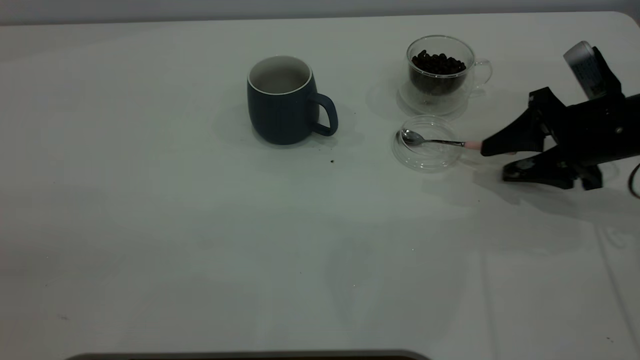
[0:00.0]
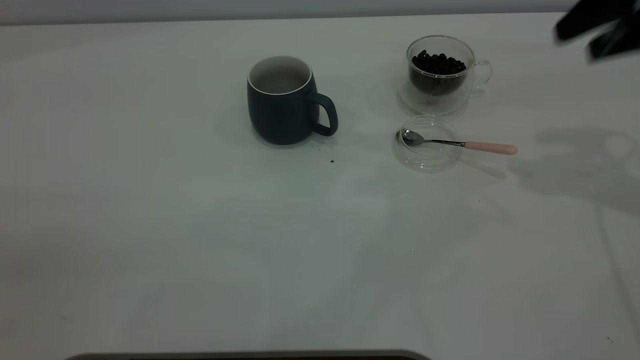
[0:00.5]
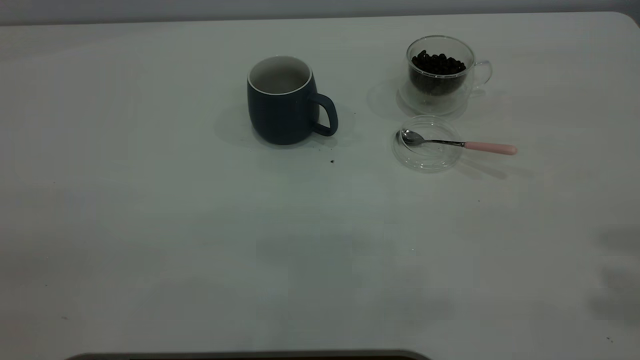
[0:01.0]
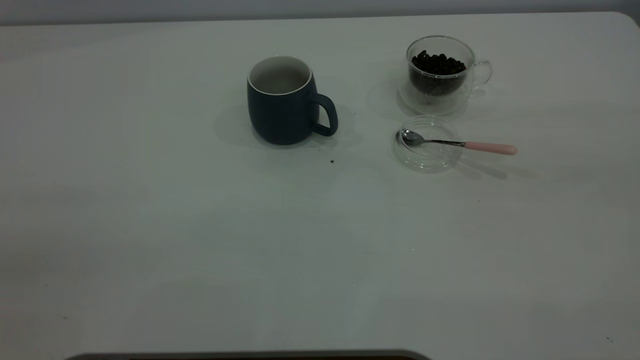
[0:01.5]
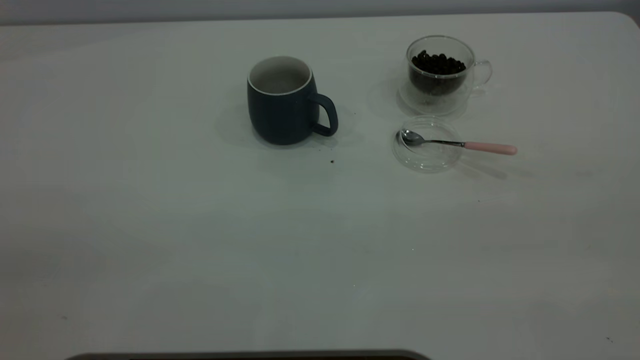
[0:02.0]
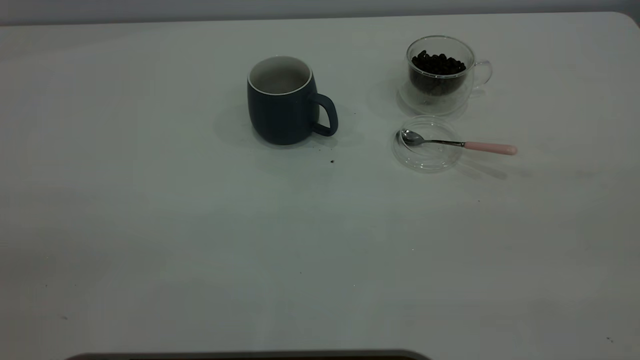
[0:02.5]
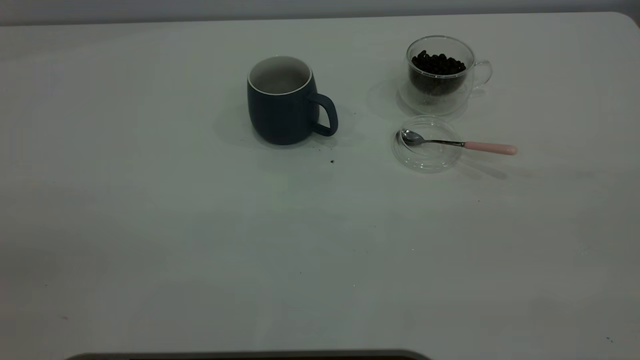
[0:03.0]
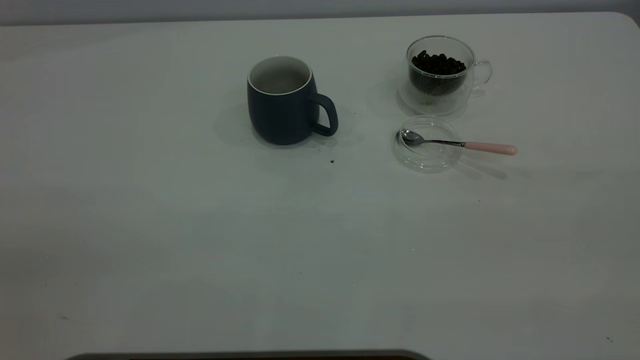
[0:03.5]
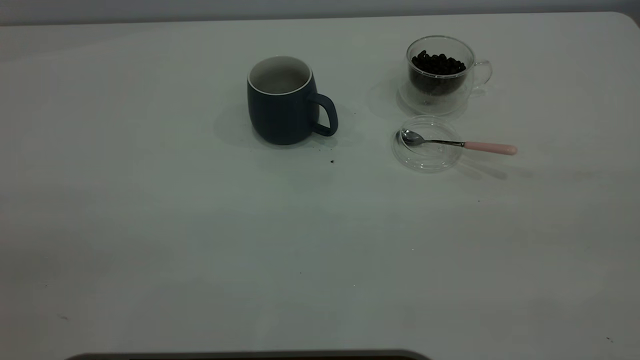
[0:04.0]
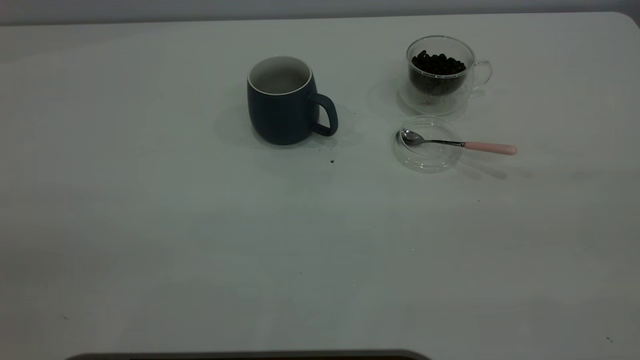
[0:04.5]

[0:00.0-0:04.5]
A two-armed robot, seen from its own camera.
Task of the whole recording: the left gripper place the grey cup in the center of the table, the right gripper take the pink spoon from the cup lid and scoop out the coffee beans from the coffee cup and put them into the grey cup, the right gripper put the spoon back into the cup lid.
0:00.0 to 0:02.0: The right gripper heads backward and upward, covering about 40 cm.

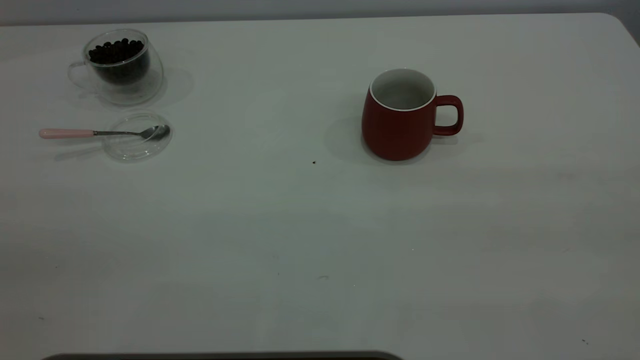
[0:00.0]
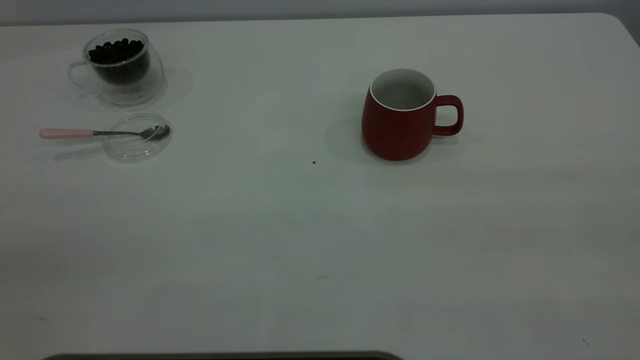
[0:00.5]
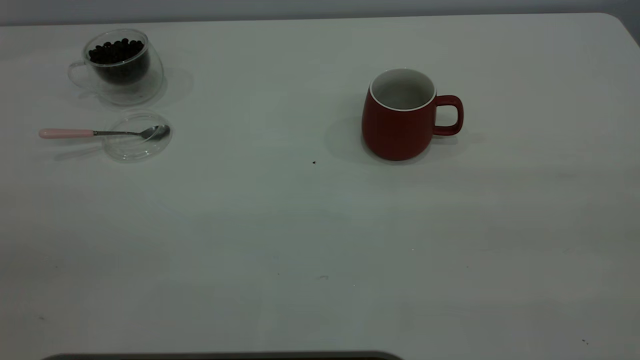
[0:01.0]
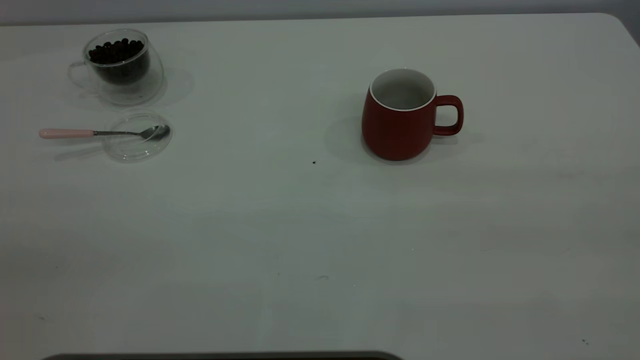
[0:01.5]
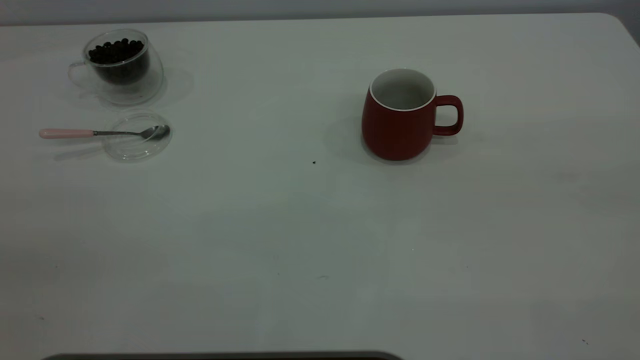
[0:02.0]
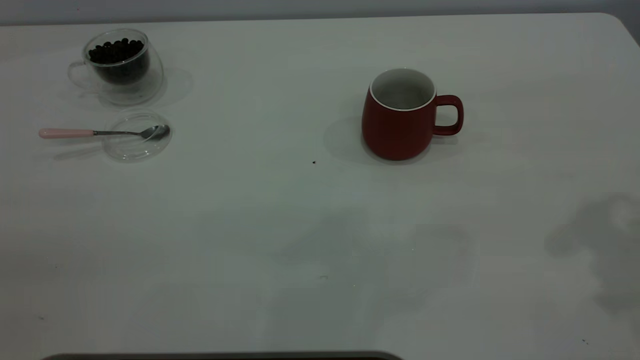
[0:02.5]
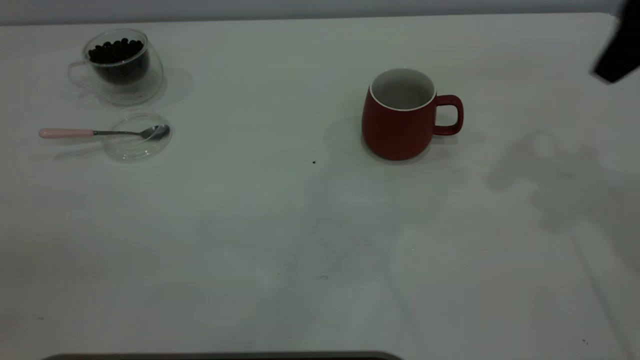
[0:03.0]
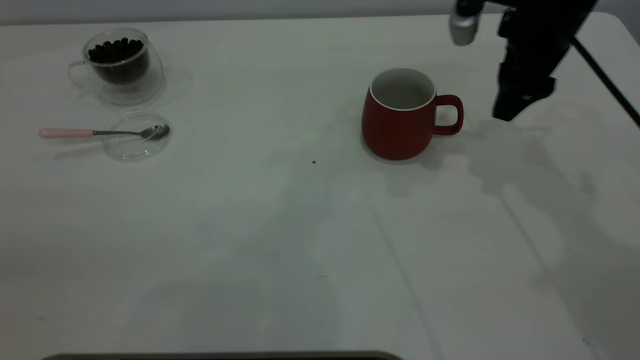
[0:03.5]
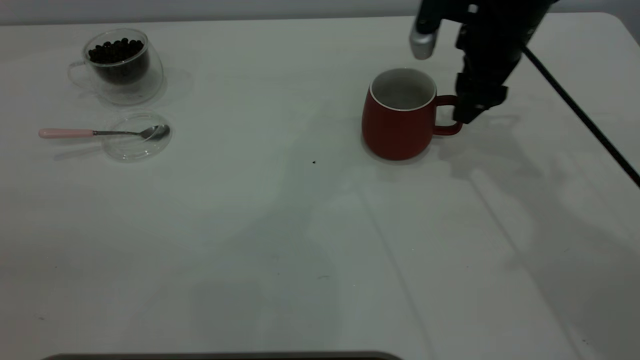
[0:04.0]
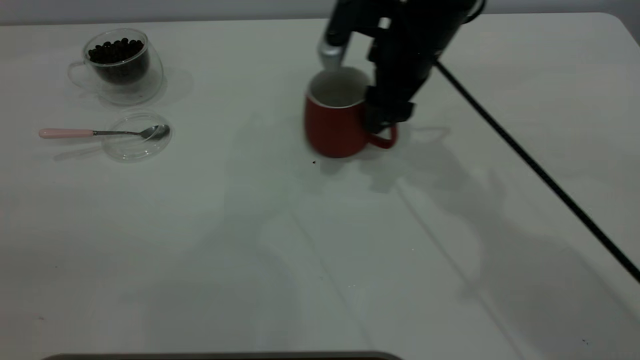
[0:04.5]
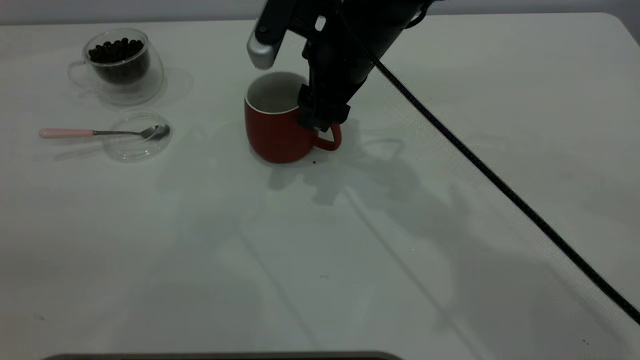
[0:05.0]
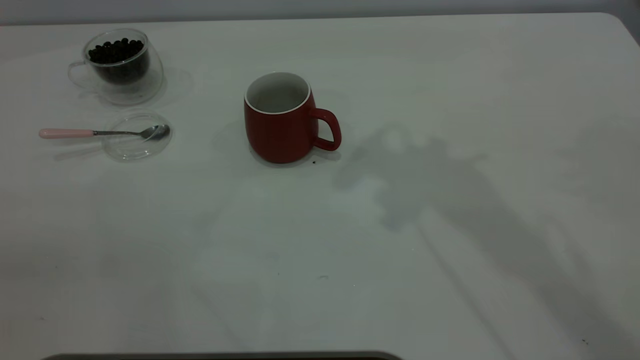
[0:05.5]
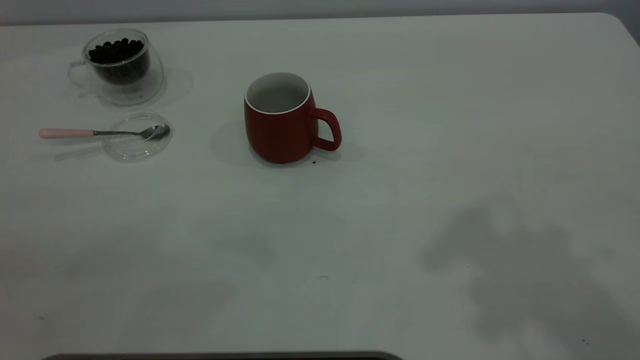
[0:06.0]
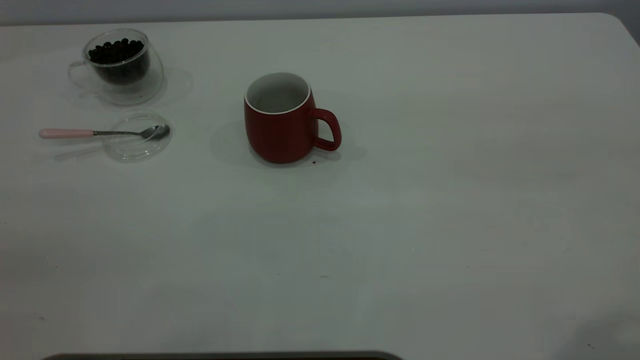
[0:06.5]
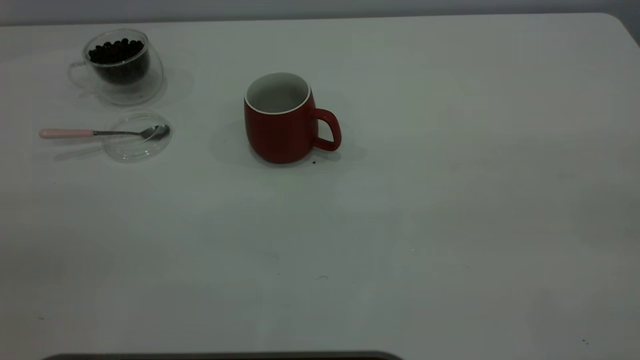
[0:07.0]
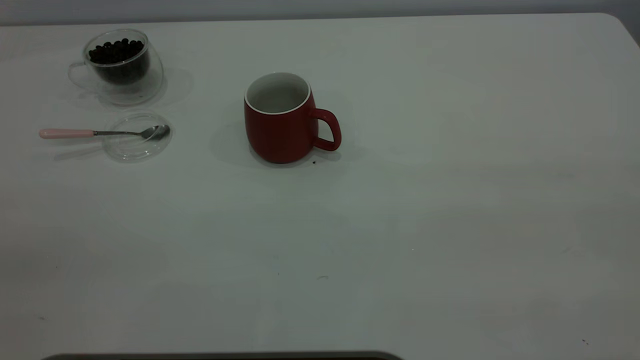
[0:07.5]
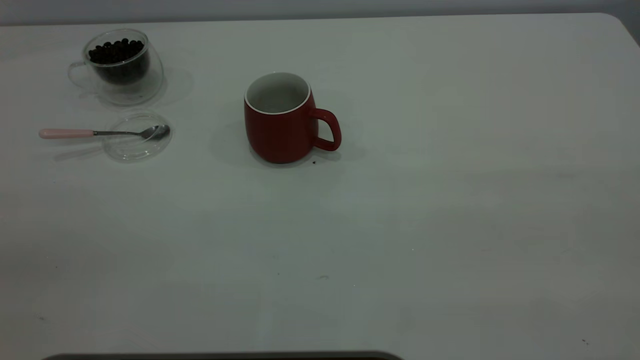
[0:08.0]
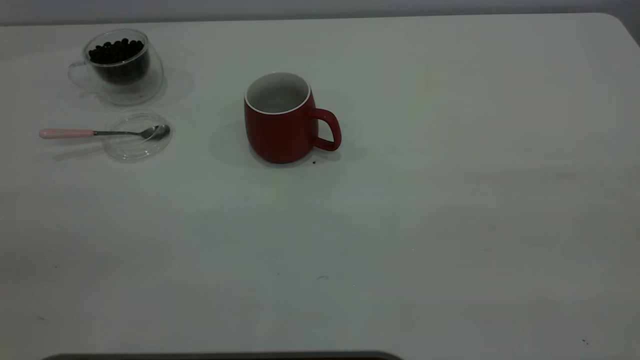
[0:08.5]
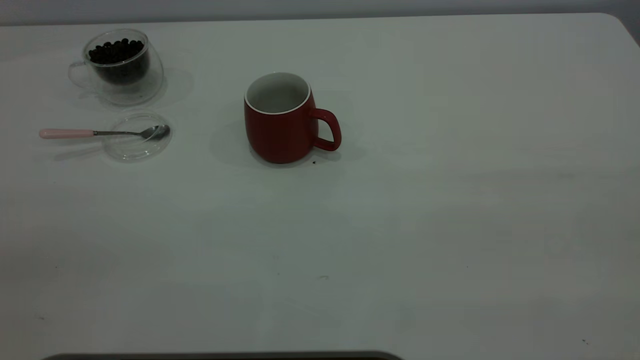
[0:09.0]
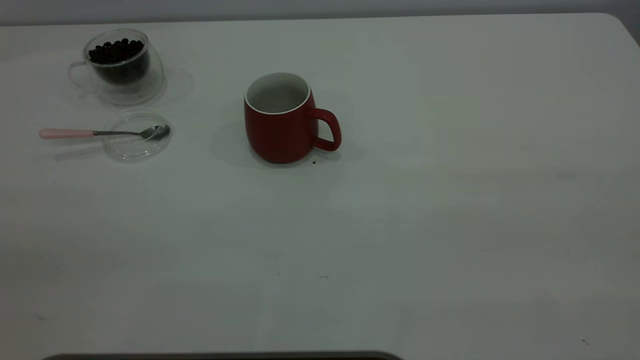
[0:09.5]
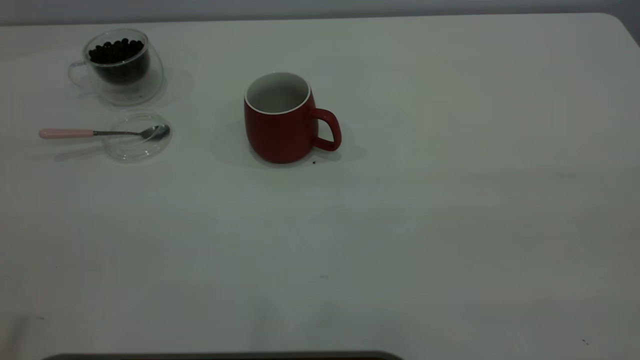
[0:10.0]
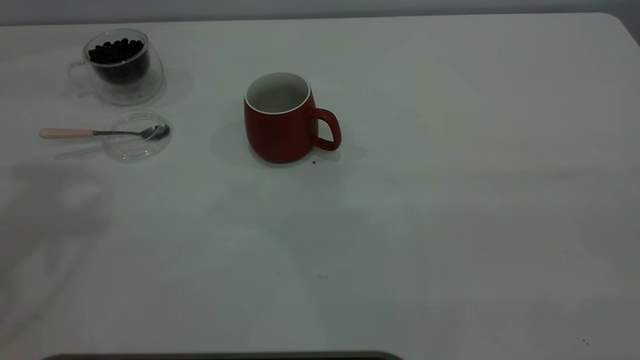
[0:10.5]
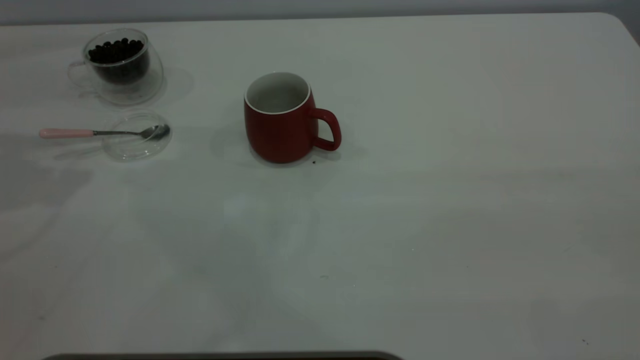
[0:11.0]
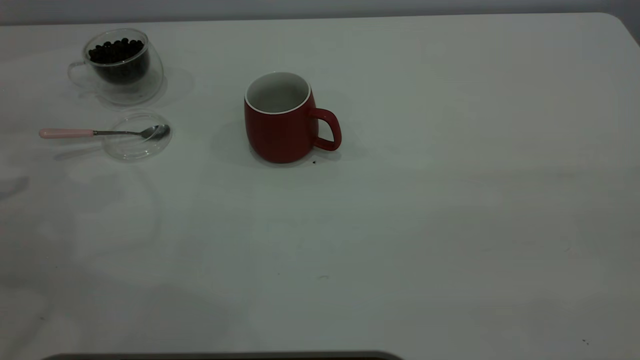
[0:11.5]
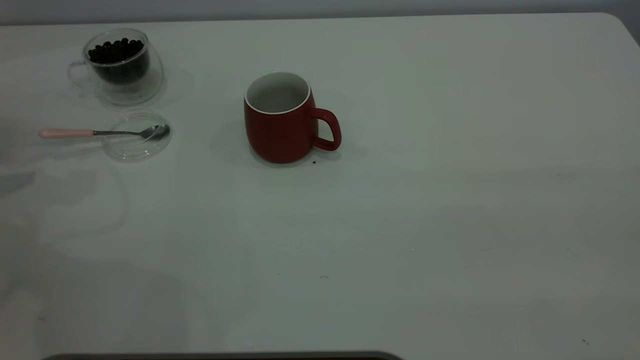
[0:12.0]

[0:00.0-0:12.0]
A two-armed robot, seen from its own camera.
Task of the whole recording: the right gripper place the red cup in the center of the table, the left gripper take the pink spoon from the cup lid and scoop out the coffee beans from the coffee cup and put them into the red cup, the left gripper put the spoon back into the cup lid.
Step, 0:00.0 to 0:05.0: Move the cup to the center of view.
0:02.0 to 0:04.0: The right gripper moves forward and downward, roughly 40 cm.
0:04.0 to 0:06.0: The right gripper is displaced upward and backward by some 40 cm.

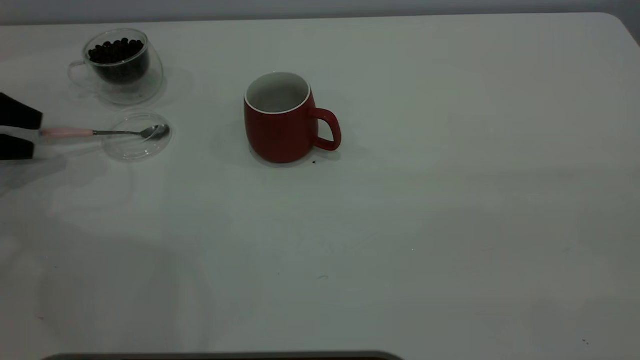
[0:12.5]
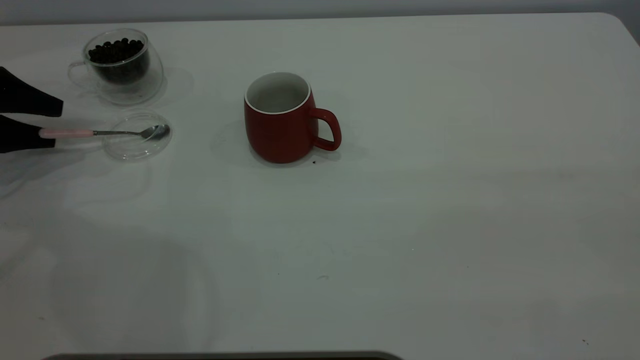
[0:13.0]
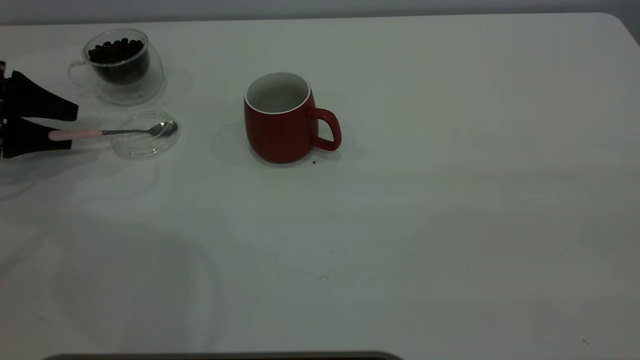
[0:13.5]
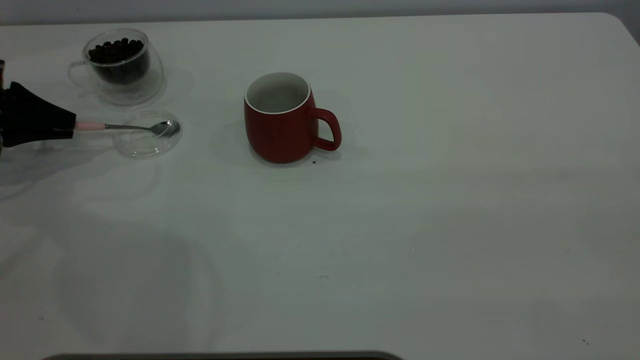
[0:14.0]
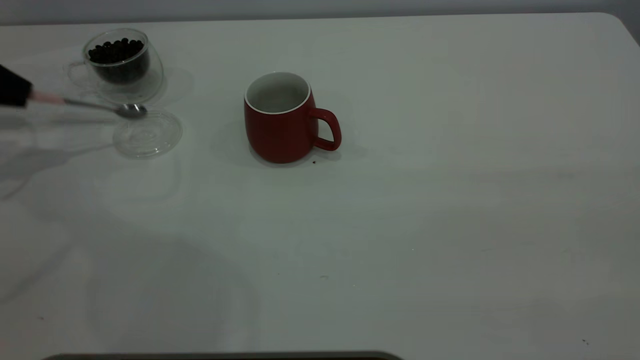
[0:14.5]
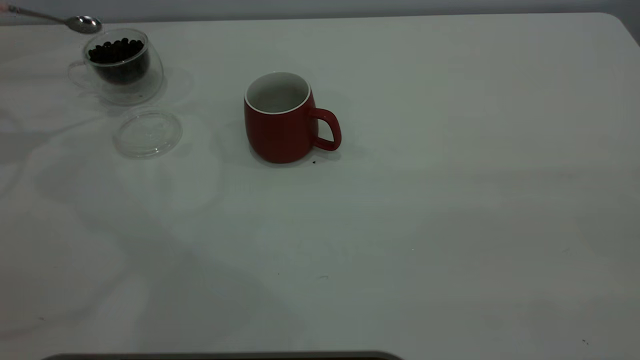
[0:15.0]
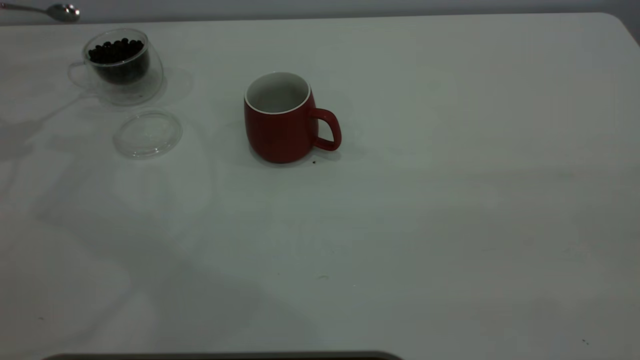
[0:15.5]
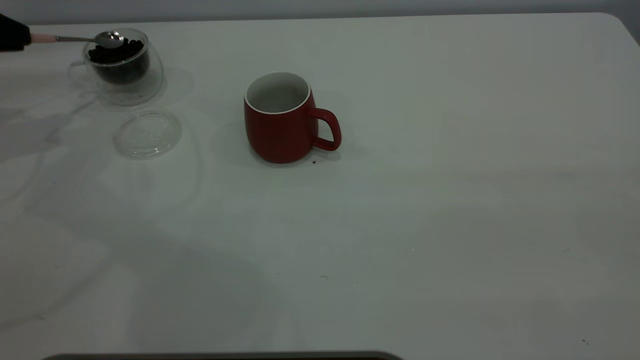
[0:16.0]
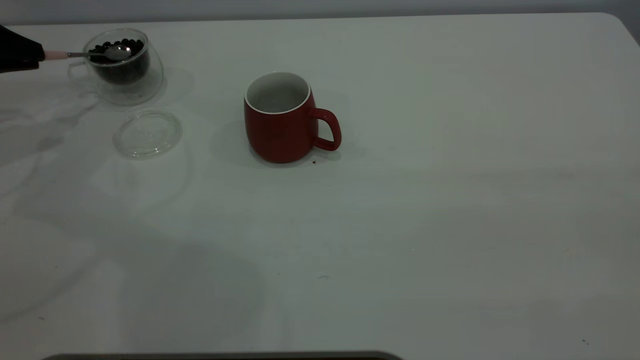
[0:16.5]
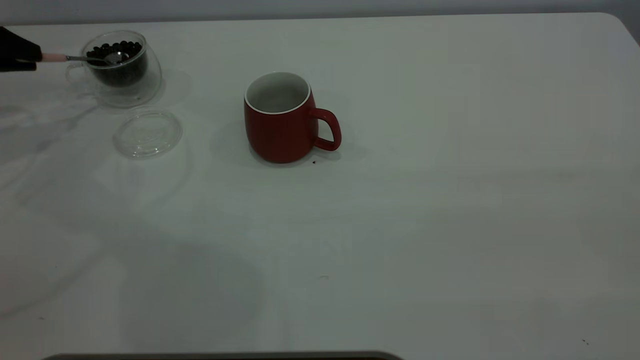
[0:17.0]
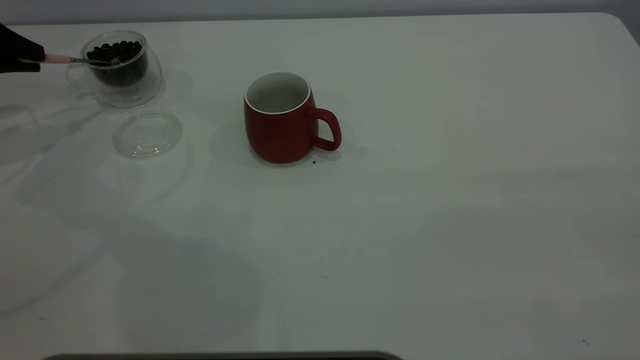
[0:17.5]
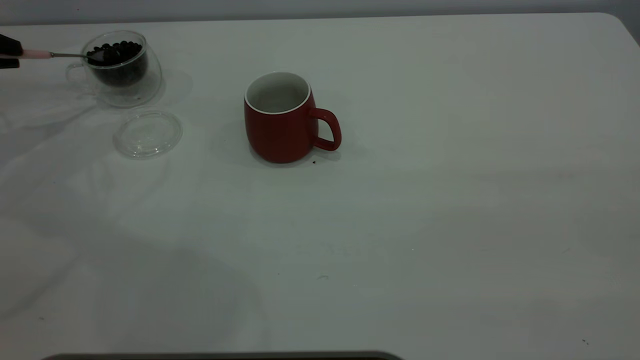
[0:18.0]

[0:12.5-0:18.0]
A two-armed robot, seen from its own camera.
Task of the whole recording: the right gripper place the red cup in the center of the table, the left gripper take the pink spoon from the cup lid and scoop out the coffee beans from the coffee cup and put them into the red cup, the left gripper put the spoon back into the cup lid.
Step, 0:12.5 to 0:14.5: Pick up the spoon.
0:12.5 to 0:14.5: The left gripper travels upward by roughly 10 cm, and closes.
0:14.5 to 0:16.0: The left gripper reaches approximately 10 cm upward, then returns.
